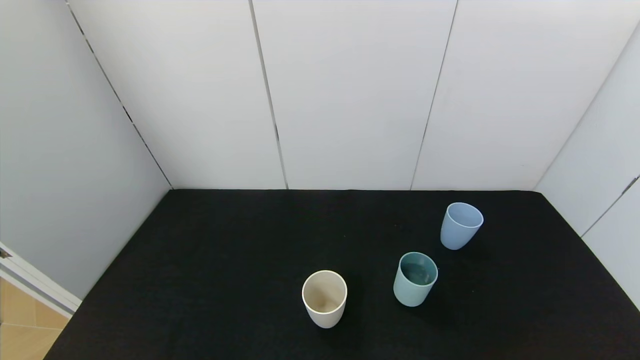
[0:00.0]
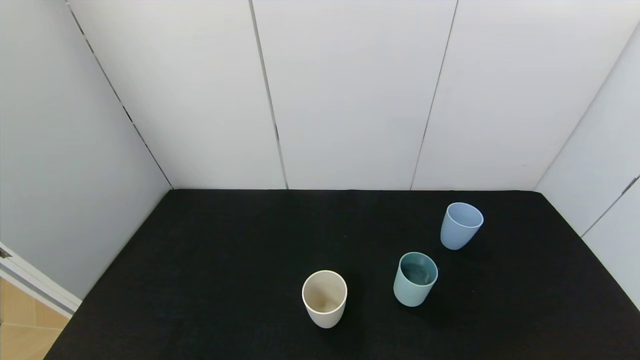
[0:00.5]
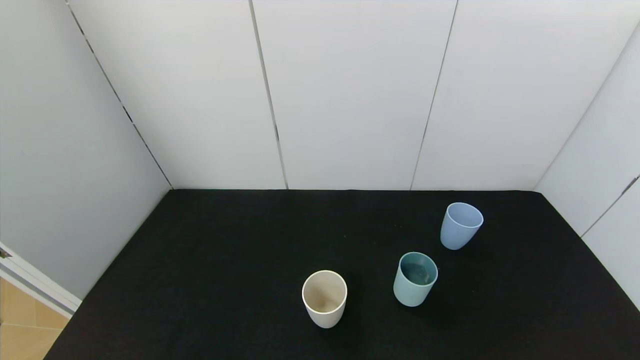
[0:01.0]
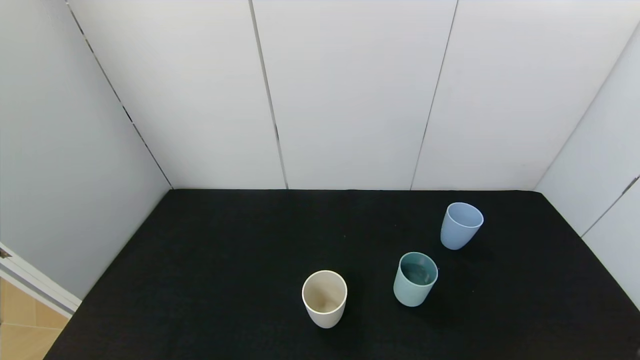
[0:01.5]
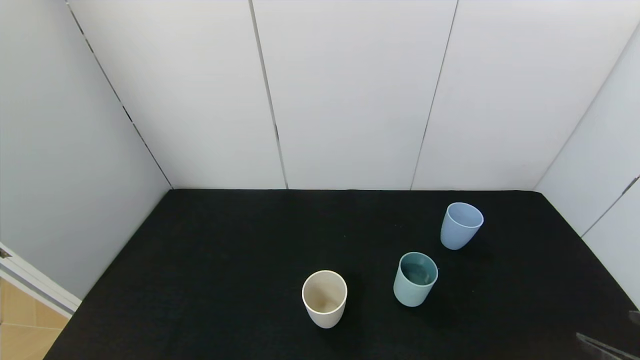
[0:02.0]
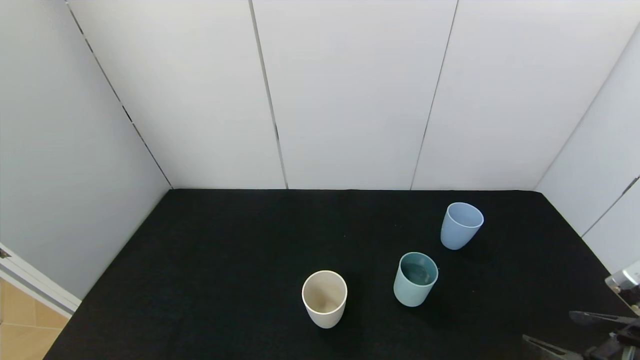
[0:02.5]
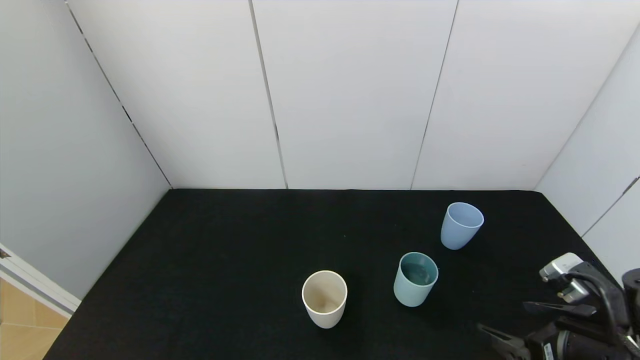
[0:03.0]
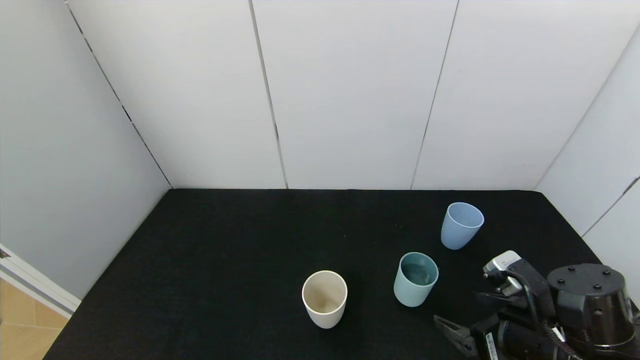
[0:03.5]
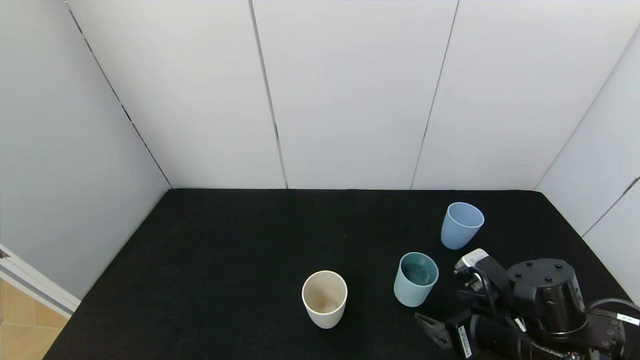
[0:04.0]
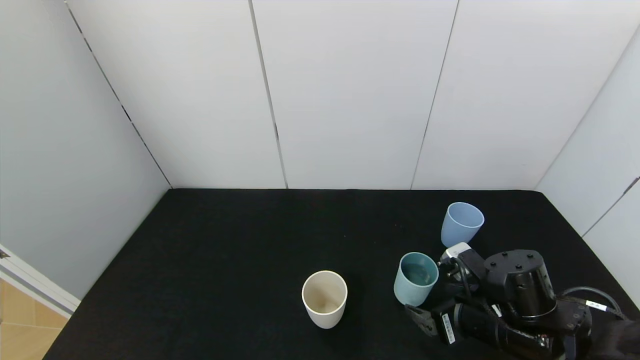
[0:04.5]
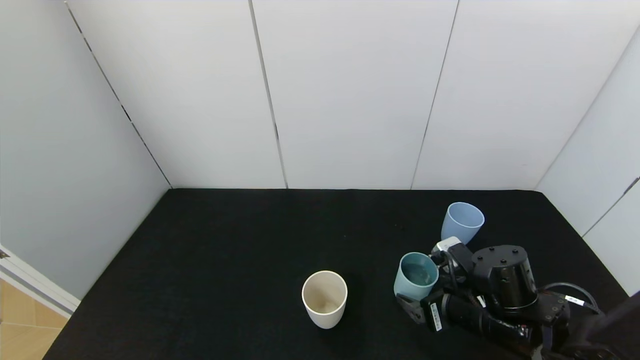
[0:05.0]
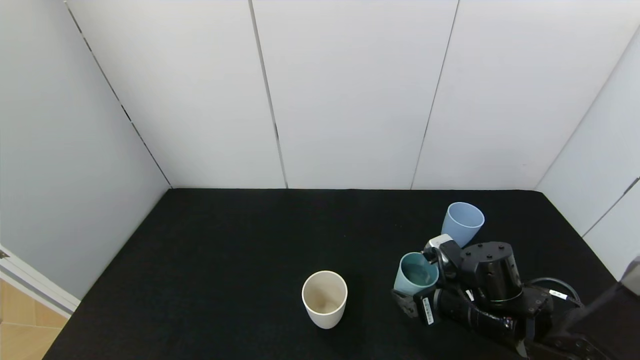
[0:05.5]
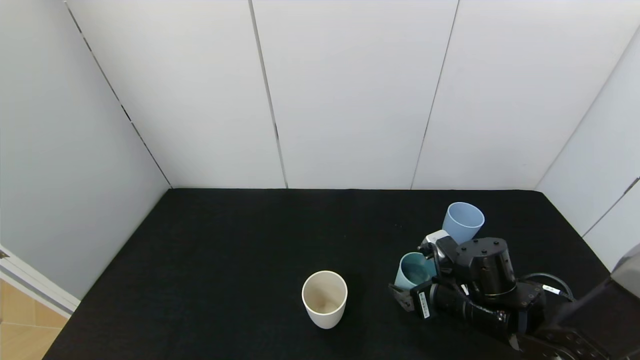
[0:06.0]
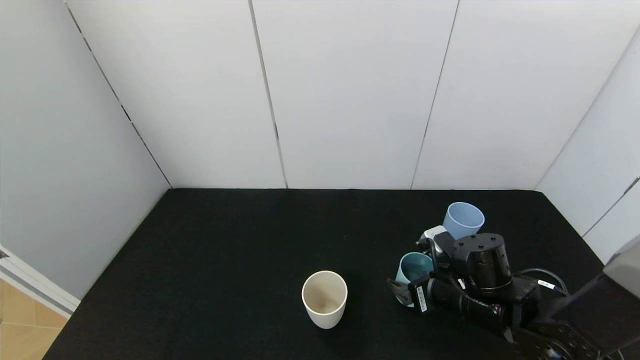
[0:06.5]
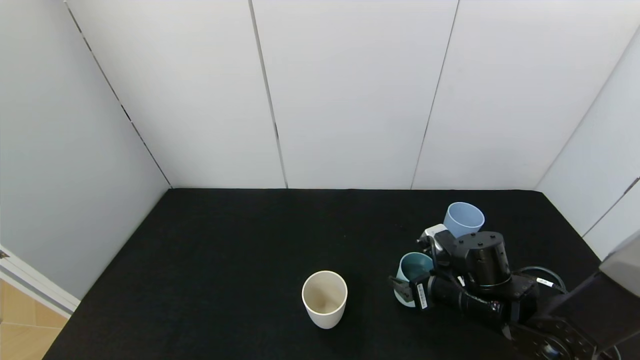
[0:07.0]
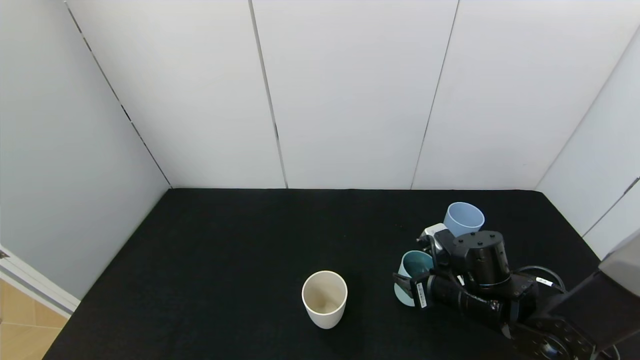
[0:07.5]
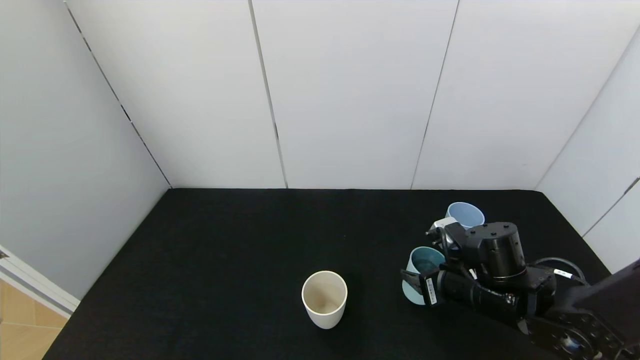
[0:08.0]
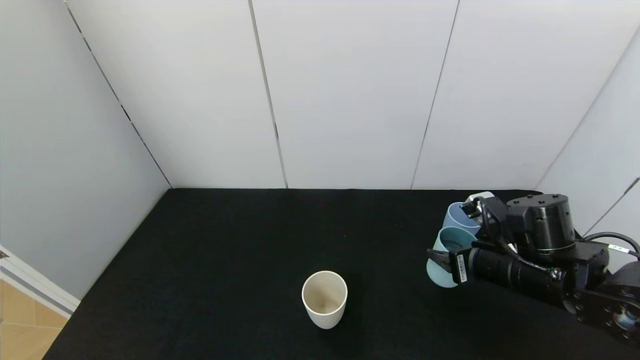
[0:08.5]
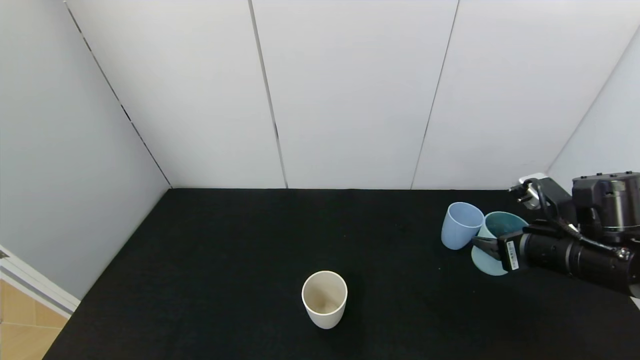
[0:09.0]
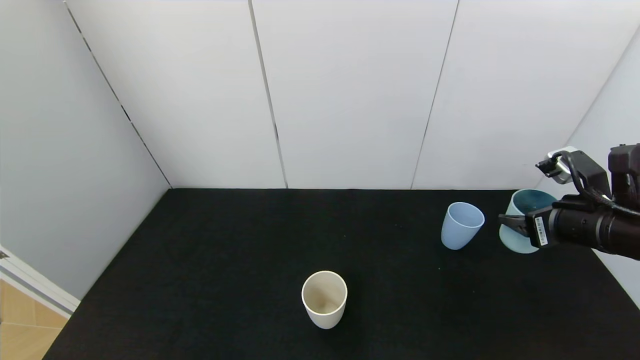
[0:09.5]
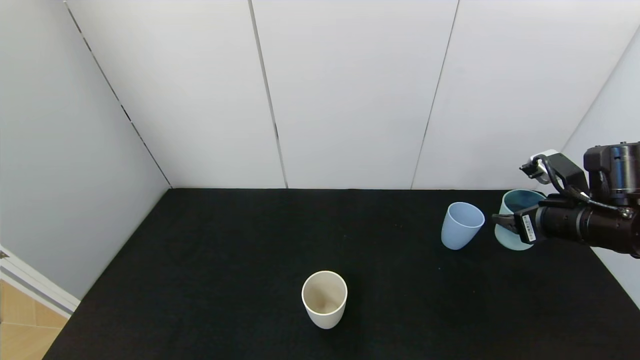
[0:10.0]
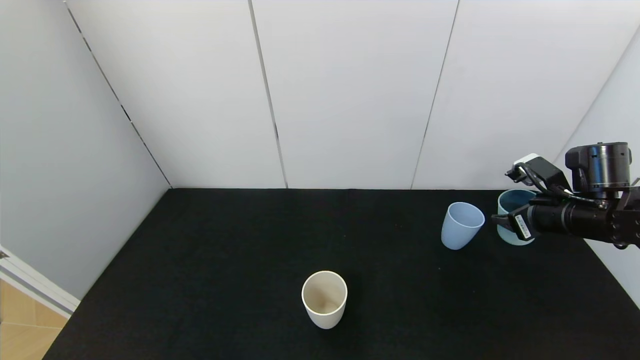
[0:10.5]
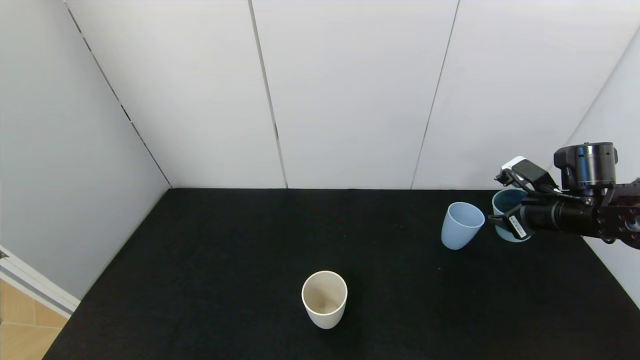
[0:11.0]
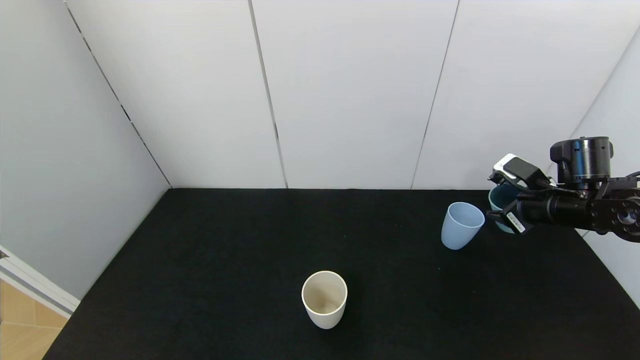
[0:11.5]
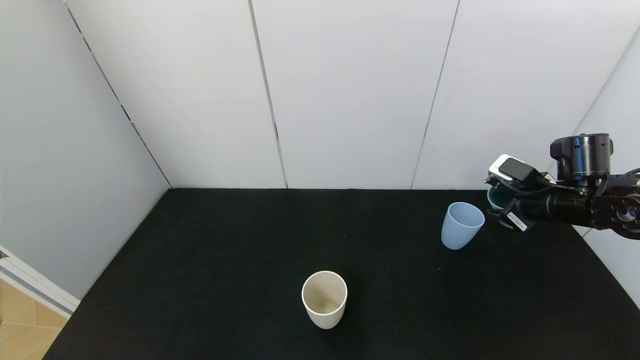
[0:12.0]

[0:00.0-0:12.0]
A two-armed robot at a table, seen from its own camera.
Task of the whole recording: use the gripper to pour the water into the other two cups on black table.
Step, 0:00.0 to 0:07.0: Grasp the green cup with the right gripper.
0:02.0 to 0:04.0: The right gripper heads forward, to the left and downward, covering roughly 20 cm.
0:04.0 to 0:06.0: The right gripper goes about 5 cm forward.
0:06.0 to 0:08.0: The right gripper closes up.
0:08.0 to 0:10.0: The right gripper travels to the right and upward by about 15 cm.
0:10.0 to 0:12.0: The right gripper travels forward by approximately 5 cm.

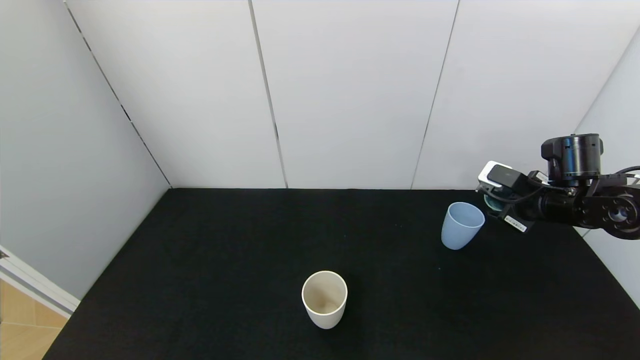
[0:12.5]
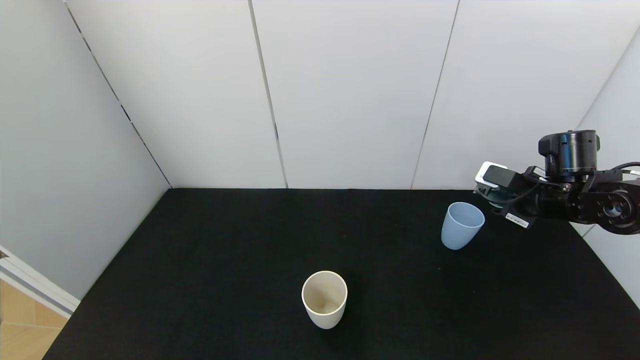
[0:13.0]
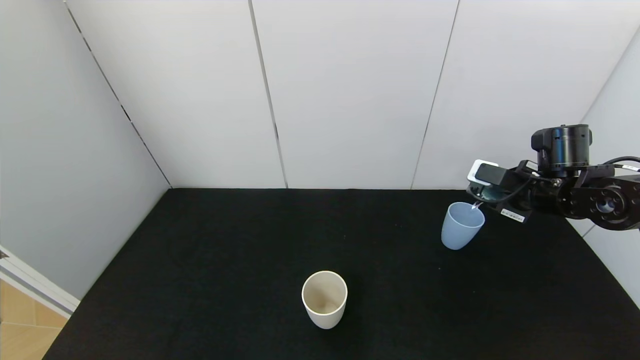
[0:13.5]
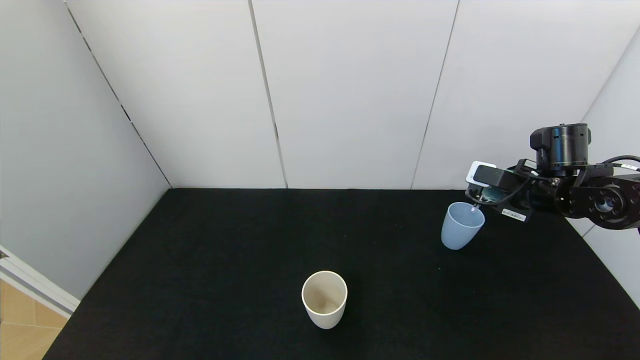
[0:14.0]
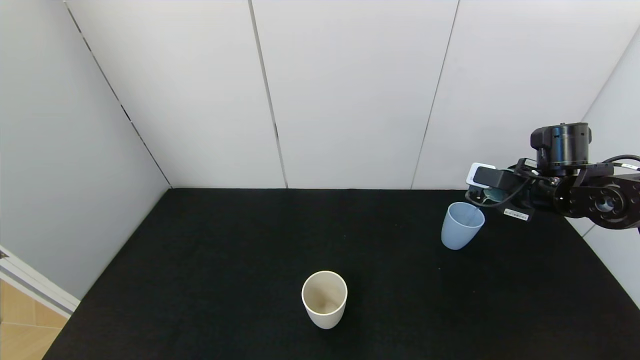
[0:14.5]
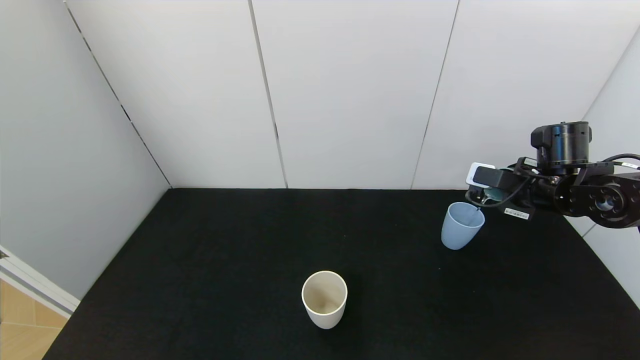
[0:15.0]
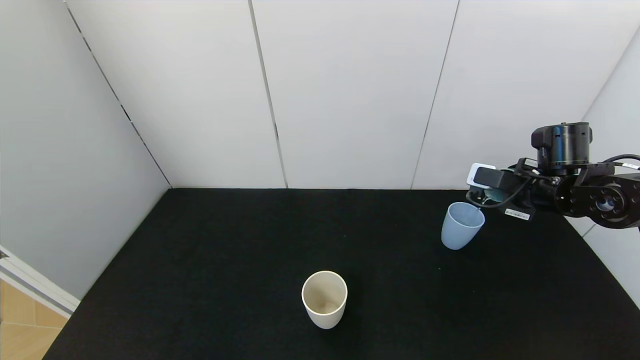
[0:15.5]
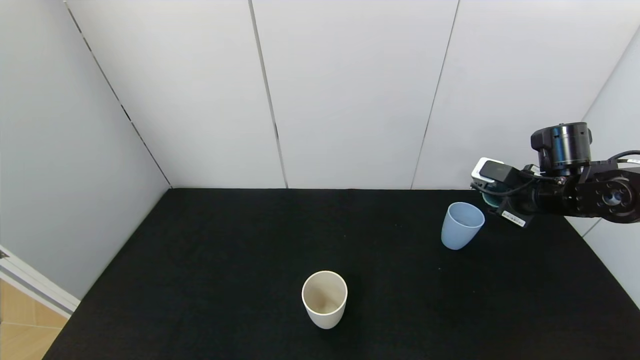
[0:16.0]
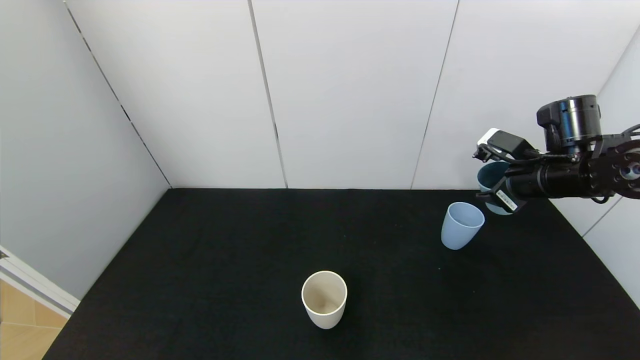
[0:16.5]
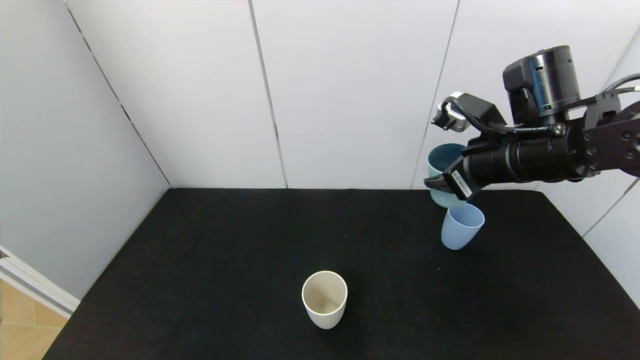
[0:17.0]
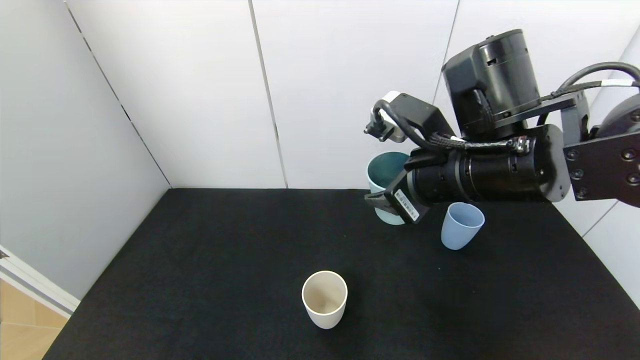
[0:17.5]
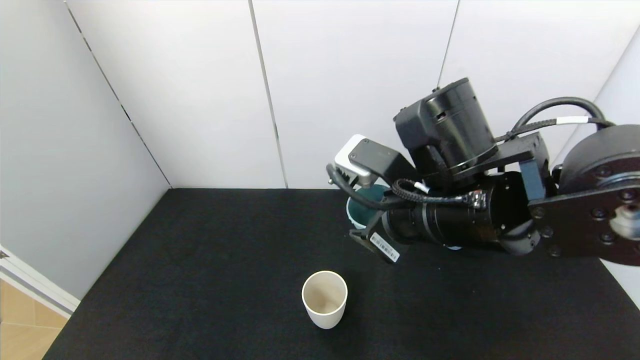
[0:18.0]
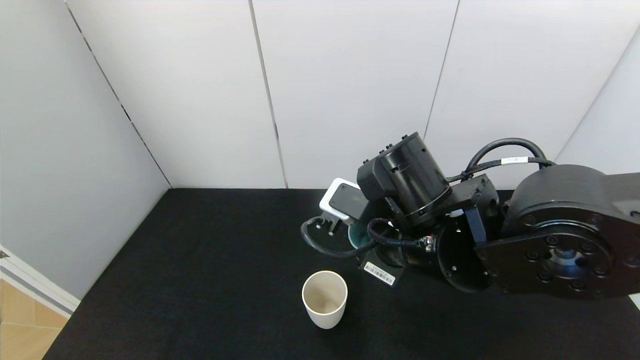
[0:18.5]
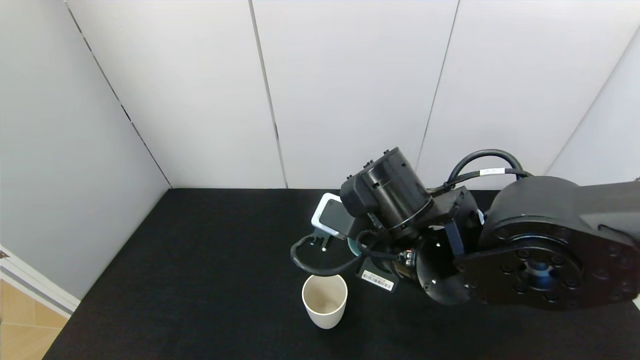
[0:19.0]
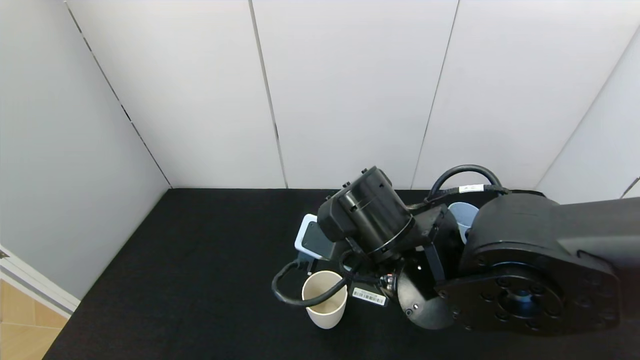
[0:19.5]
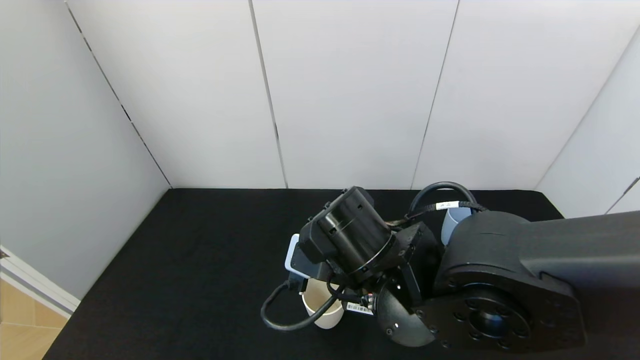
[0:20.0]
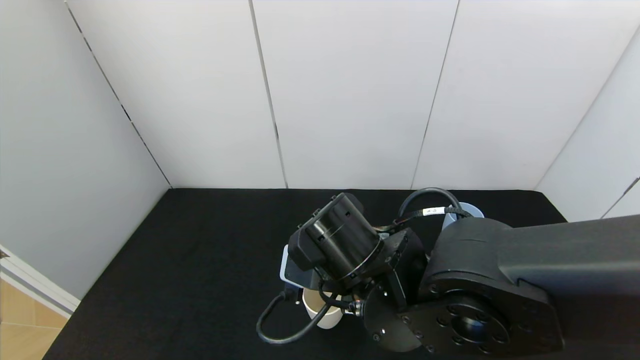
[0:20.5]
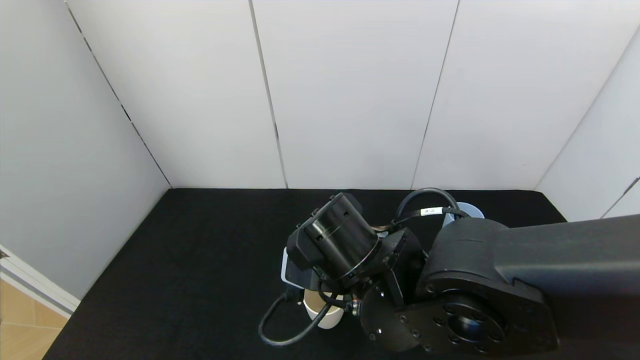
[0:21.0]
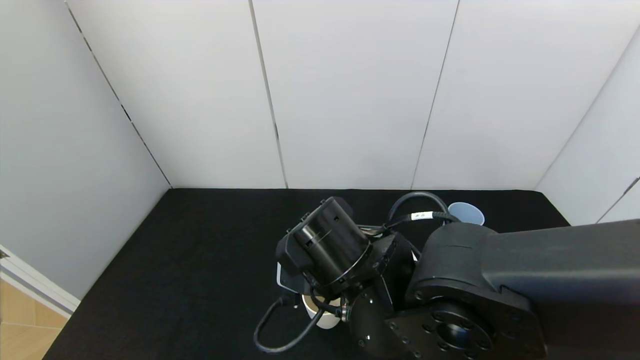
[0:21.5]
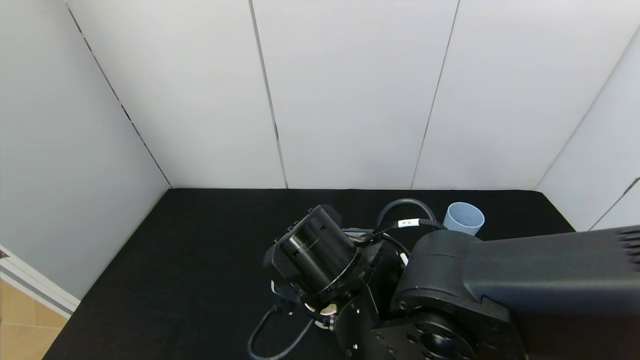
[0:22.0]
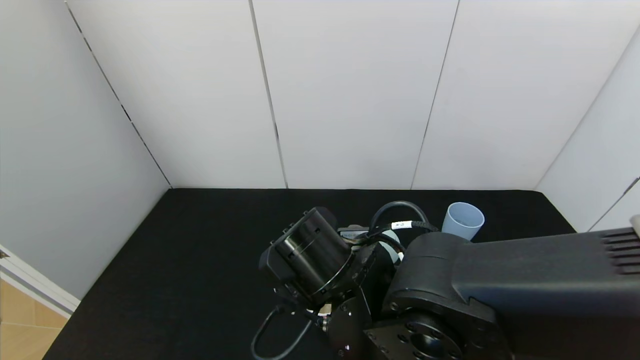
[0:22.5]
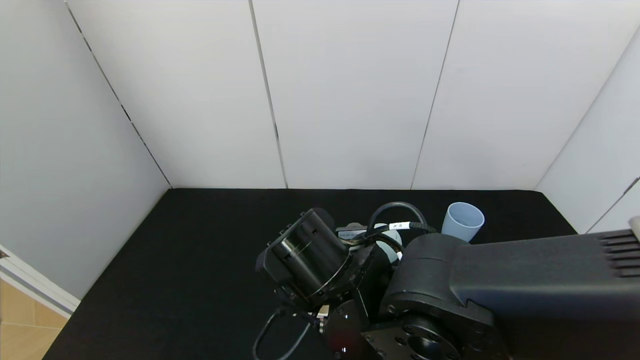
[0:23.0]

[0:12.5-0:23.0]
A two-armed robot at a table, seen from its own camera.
Task of the whole recording: use the gripper to pour the water into the other two cups on black table.
Step, 0:12.5 to 0:16.5: Pour water from green cup to blue cup with the right gripper.
0:12.5 to 0:14.5: The grippers move only a little.
0:16.5 to 0:19.0: The right gripper is displaced to the left and backward by approximately 25 cm.
0:19.0 to 0:21.0: The grippers move only a little.
0:21.0 to 0:23.0: There are only small adjustments of the grippers.
